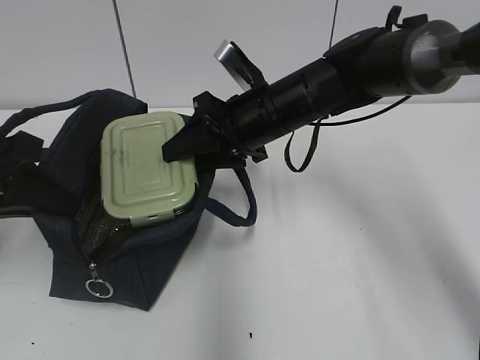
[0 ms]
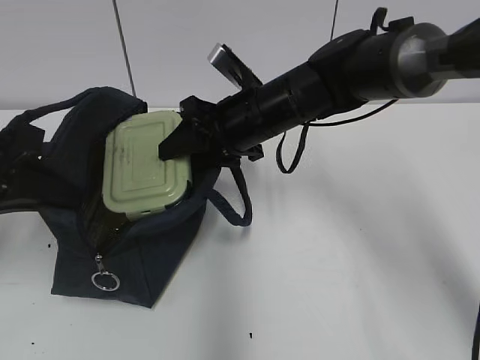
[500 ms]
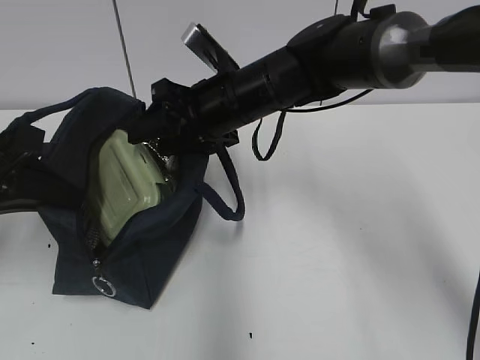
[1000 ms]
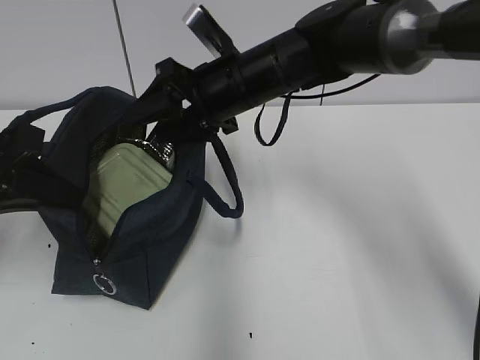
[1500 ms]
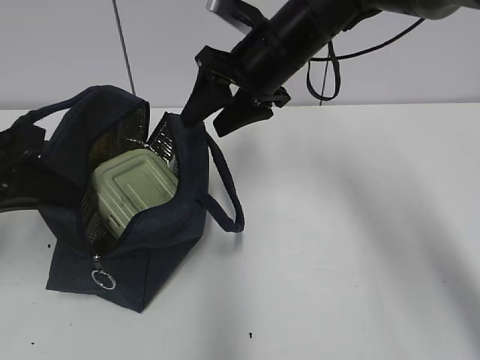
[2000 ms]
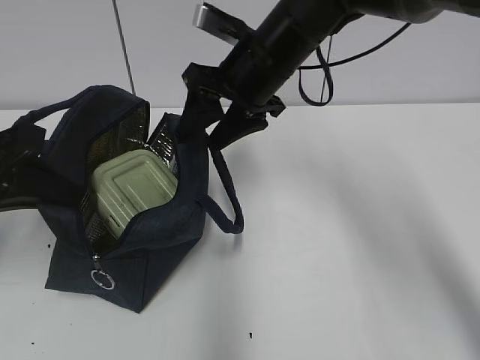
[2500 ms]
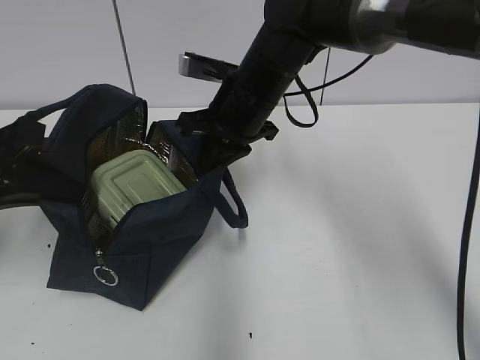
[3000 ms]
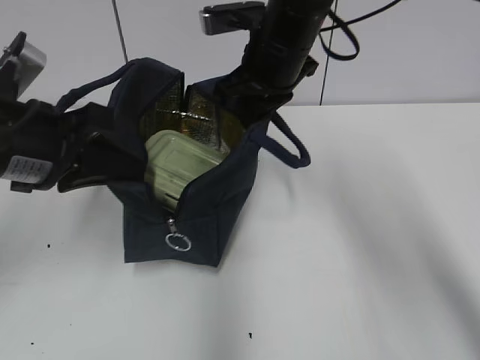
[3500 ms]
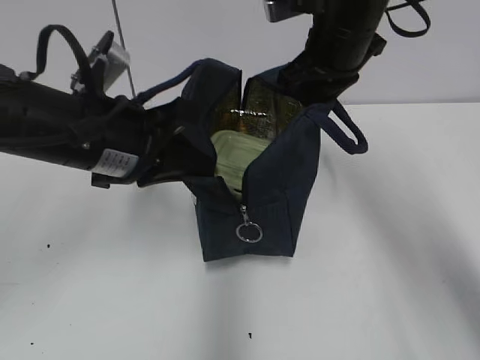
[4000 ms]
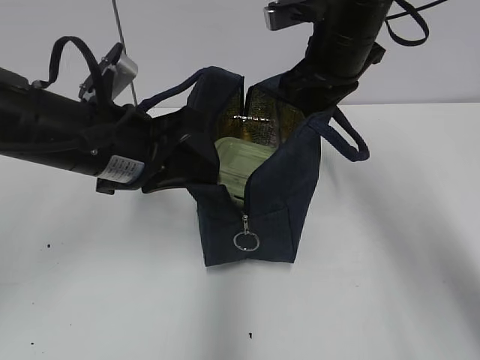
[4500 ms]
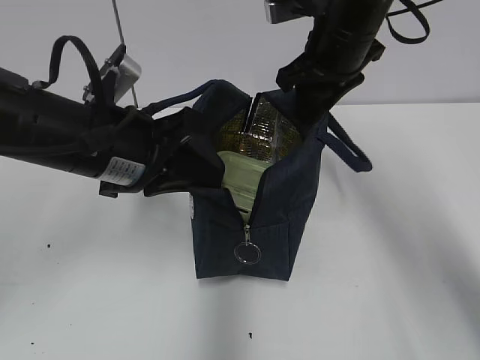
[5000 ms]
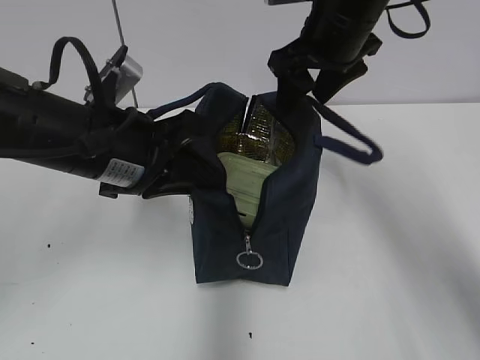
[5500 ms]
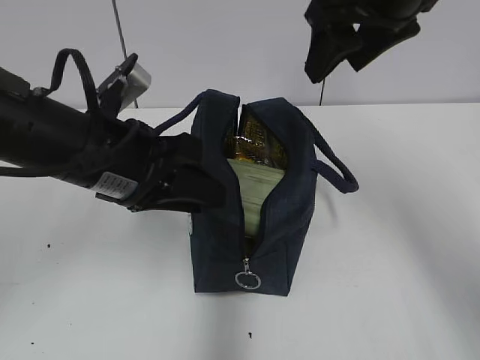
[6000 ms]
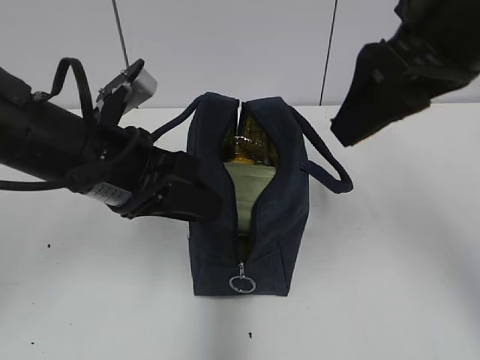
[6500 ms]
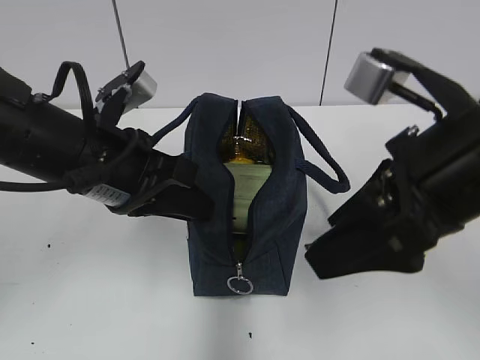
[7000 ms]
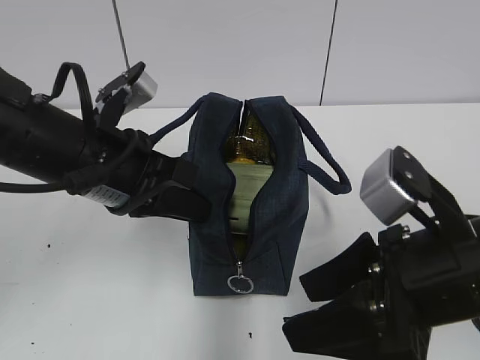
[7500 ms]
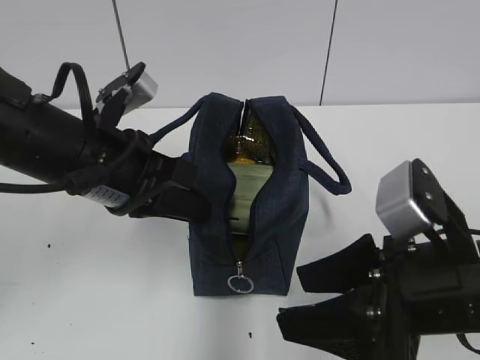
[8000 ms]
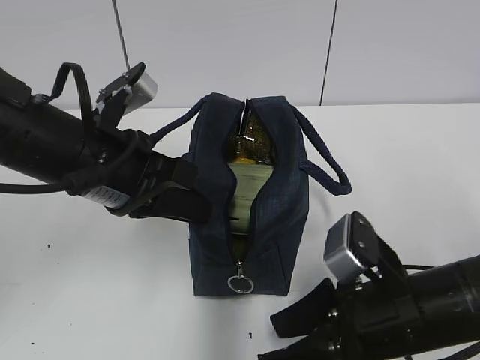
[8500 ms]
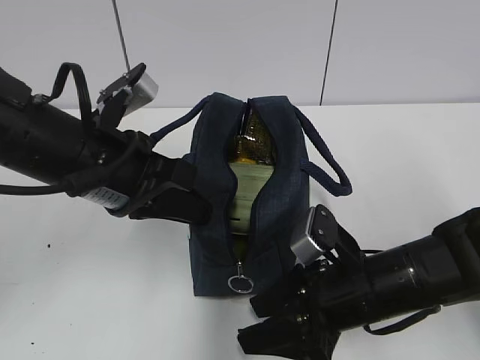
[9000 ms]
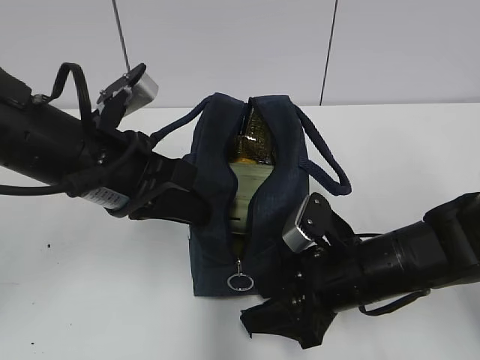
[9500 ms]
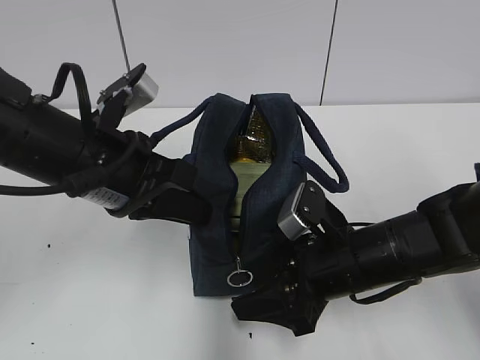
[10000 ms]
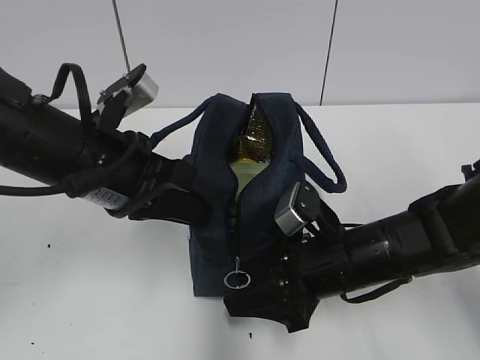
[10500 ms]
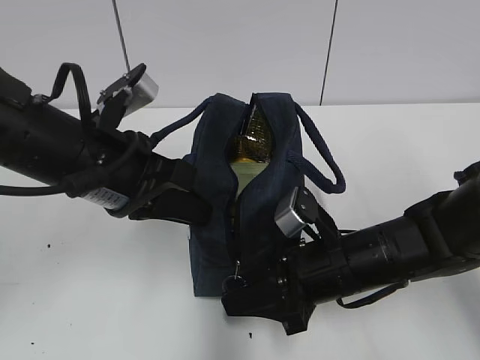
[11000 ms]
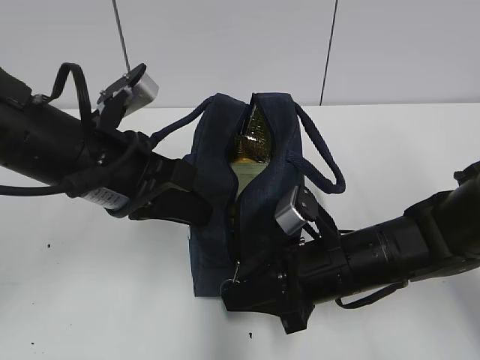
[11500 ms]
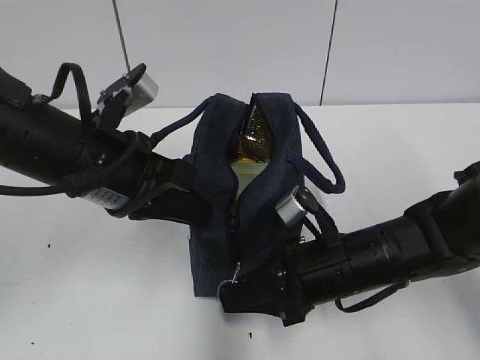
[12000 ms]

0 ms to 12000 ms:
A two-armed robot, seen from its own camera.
Step, 1500 ms to 2500 ms: Grab the lunch bag with your right hand.
Step, 3000 ms to 5500 ms: Move the lunch bag to the right.
0 ms to 2000 ms: The right gripper is displaced upward by some 5 cm.
2000 ms to 4000 ms: The left gripper travels to the right by some 10 cm. Meanwhile the right gripper heads to the right, covering approximately 5 cm, and closes up.
4000 ms to 6000 ms: The right gripper moves upward and backward, approximately 10 cm, and opens. The left gripper opens.
6000 ms to 8000 ms: The left gripper closes. Meanwhile the right gripper goes roughly 25 cm backward and downward.
8000 ms to 10000 ms: The right gripper is displaced downward and forward by approximately 15 cm.
10000 ms to 12000 ms: The right gripper closes.

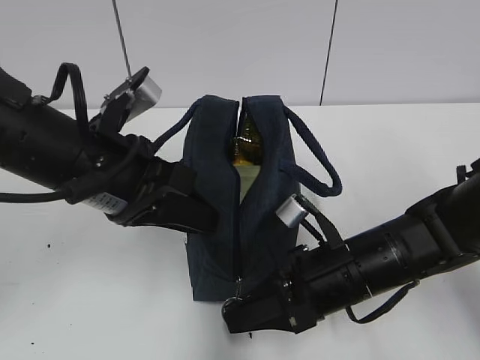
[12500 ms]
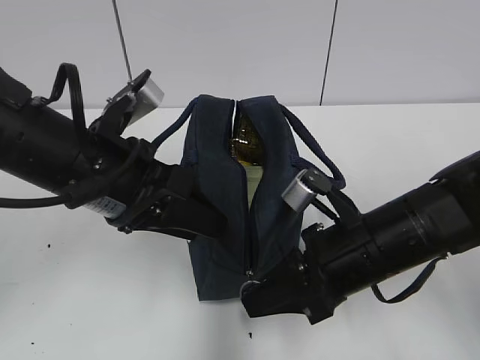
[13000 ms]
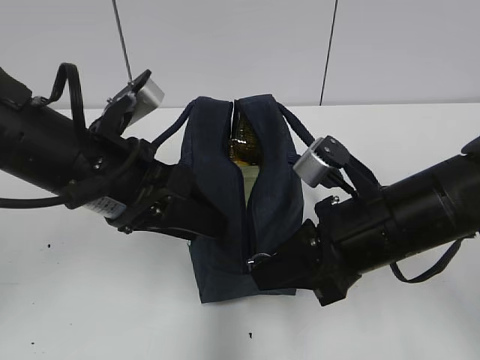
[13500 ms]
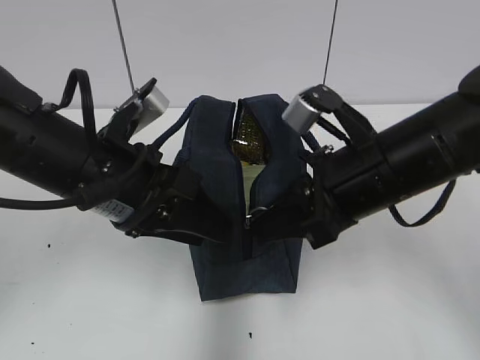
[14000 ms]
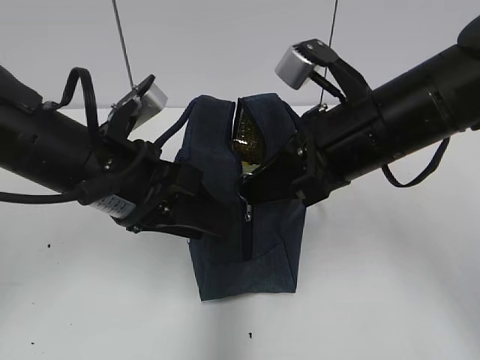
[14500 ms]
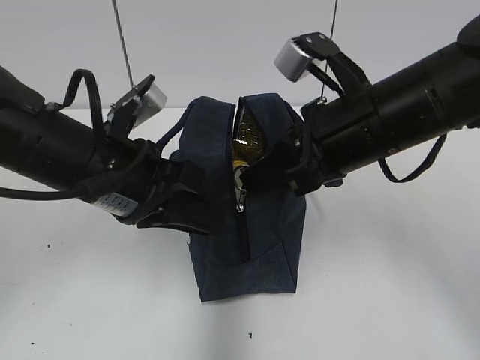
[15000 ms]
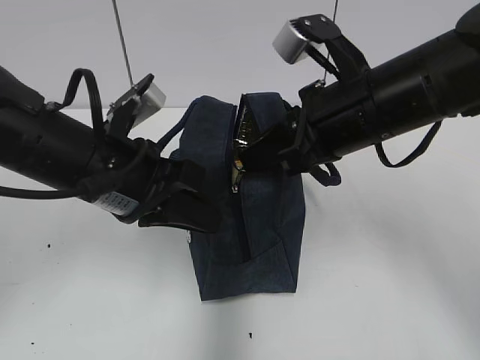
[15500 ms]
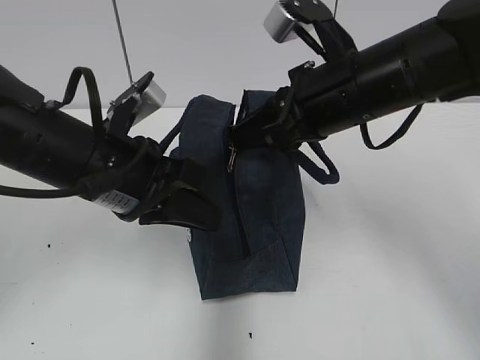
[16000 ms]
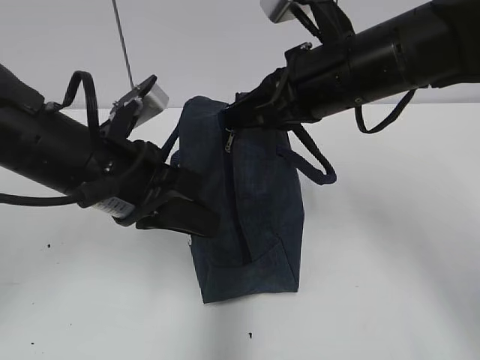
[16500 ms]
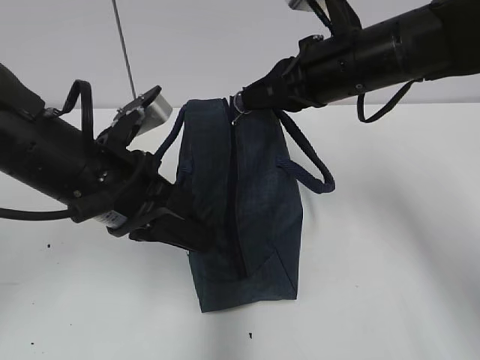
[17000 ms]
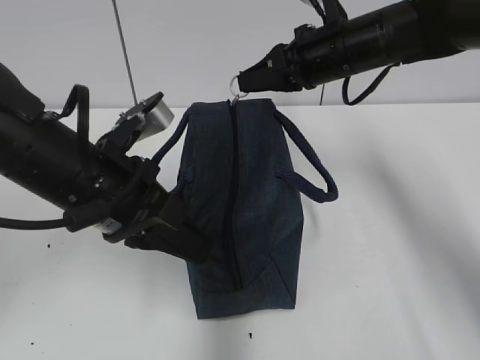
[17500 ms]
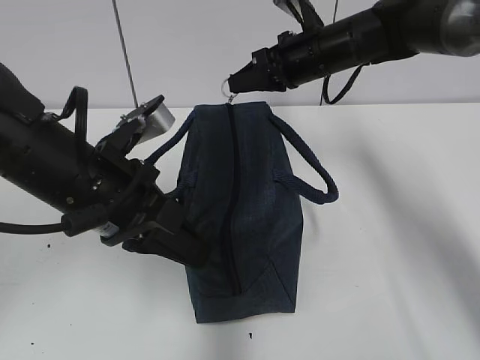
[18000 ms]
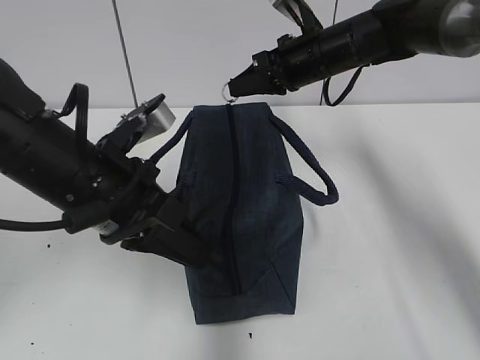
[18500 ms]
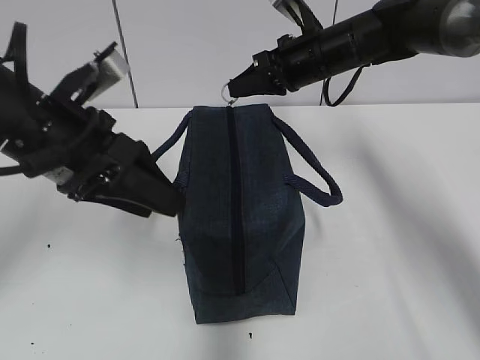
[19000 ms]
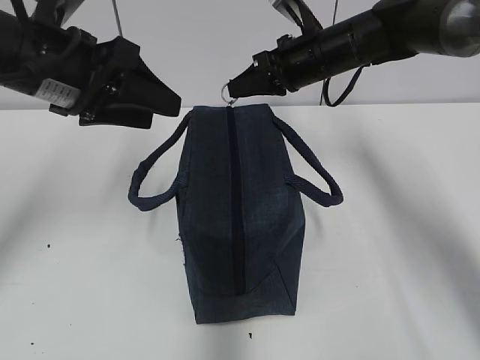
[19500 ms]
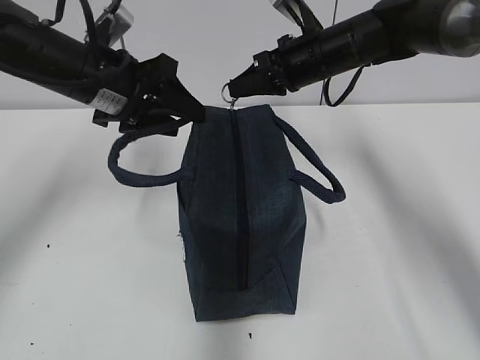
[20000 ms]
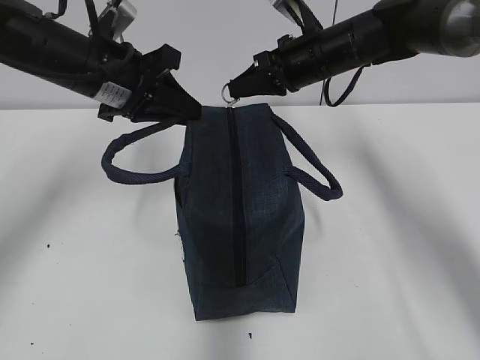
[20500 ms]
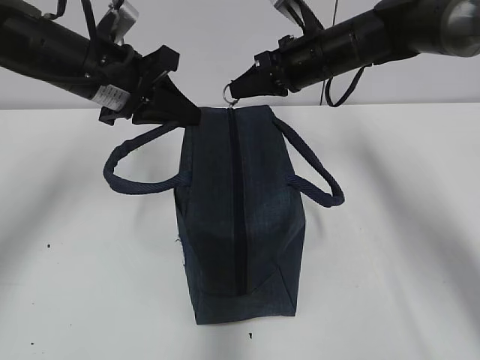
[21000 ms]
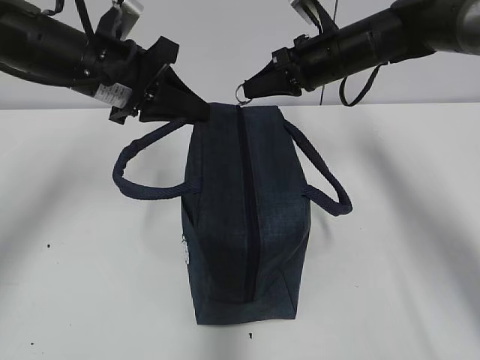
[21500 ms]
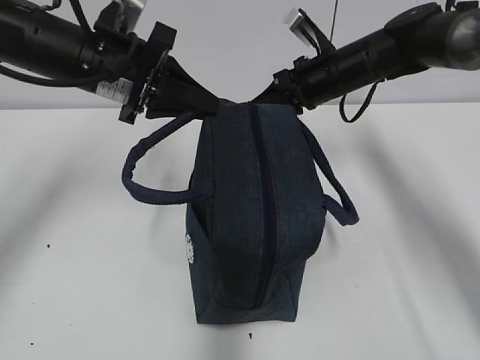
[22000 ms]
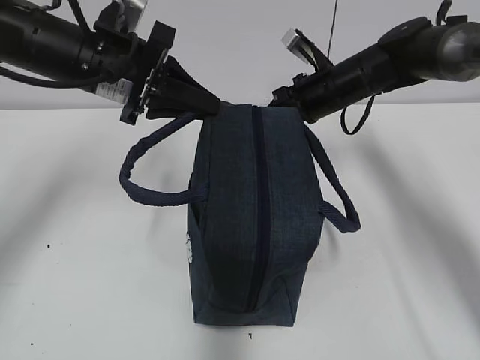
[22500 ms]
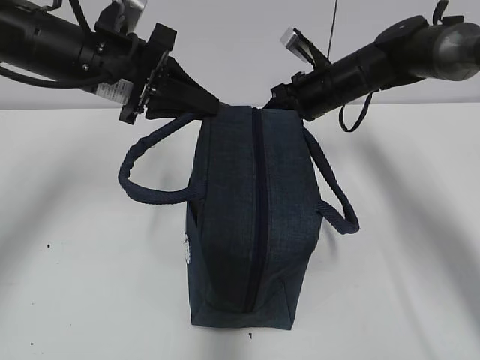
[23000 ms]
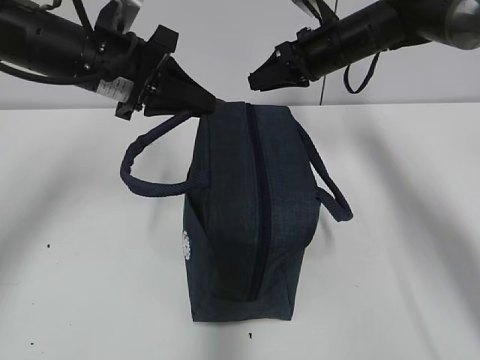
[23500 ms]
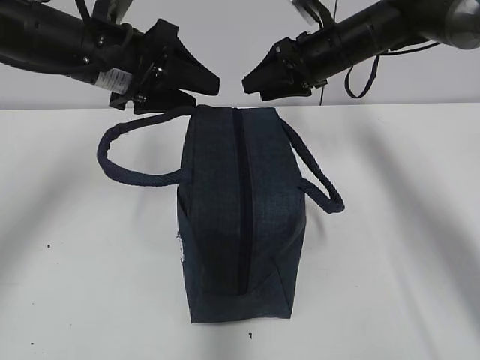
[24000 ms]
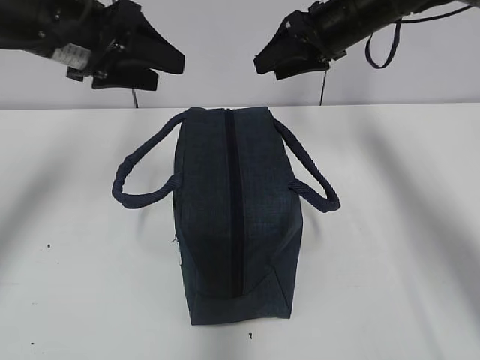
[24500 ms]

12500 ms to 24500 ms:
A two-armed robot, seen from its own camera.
Step, 15500 ms to 23000 ms: Pull the zipper with your right hand.
12500 ms to 14500 ms: The right gripper is displaced upward by roughly 15 cm.
14500 ms to 16500 ms: The left gripper closes; the right gripper shifts by some 5 cm.
16500 ms to 18500 ms: The right gripper travels forward by roughly 15 cm.
18500 ms to 20500 ms: The left gripper shifts some 15 cm forward, and opens, then closes again.
20500 ms to 22500 ms: The right gripper shifts approximately 5 cm downward.
22500 ms to 24500 ms: The right gripper travels upward by roughly 10 cm, and opens its fingers, while the left gripper shifts by about 5 cm, and opens its fingers.

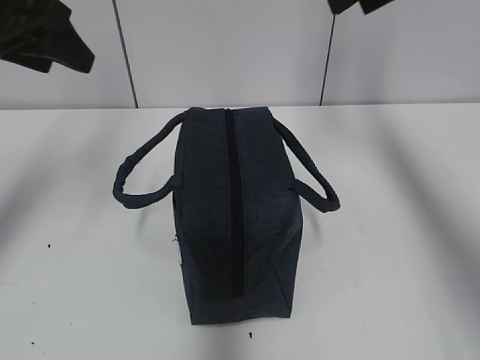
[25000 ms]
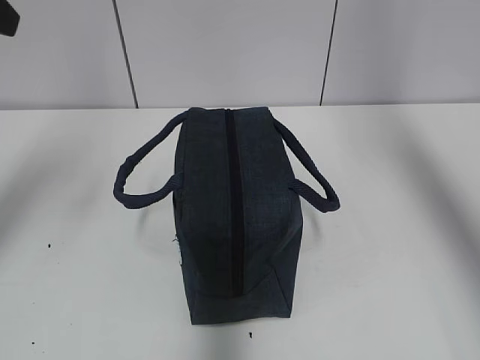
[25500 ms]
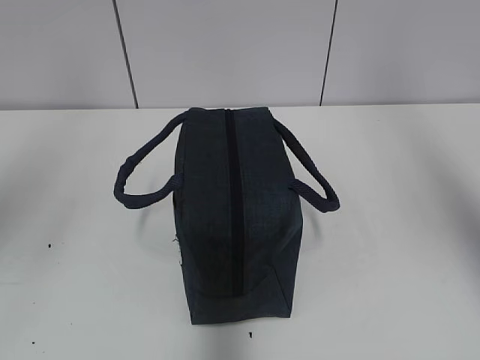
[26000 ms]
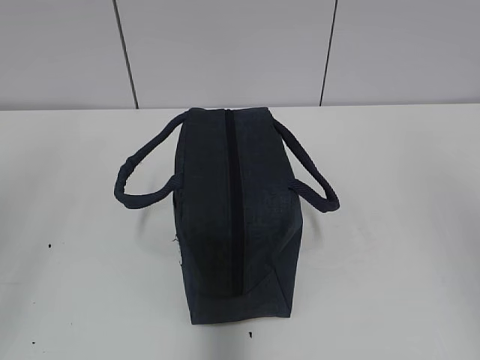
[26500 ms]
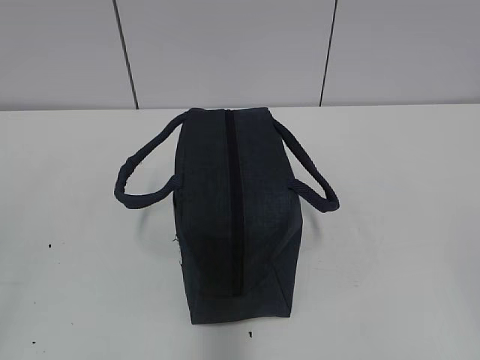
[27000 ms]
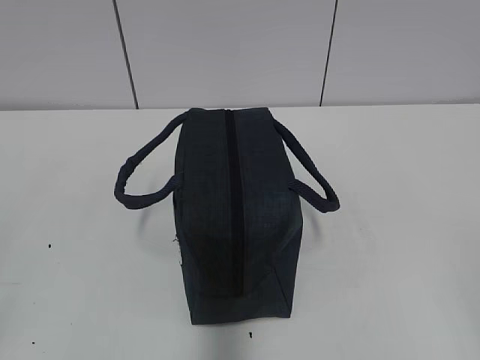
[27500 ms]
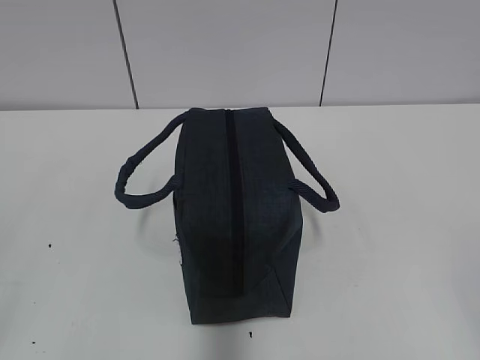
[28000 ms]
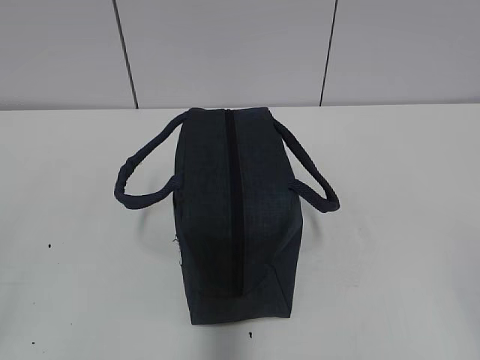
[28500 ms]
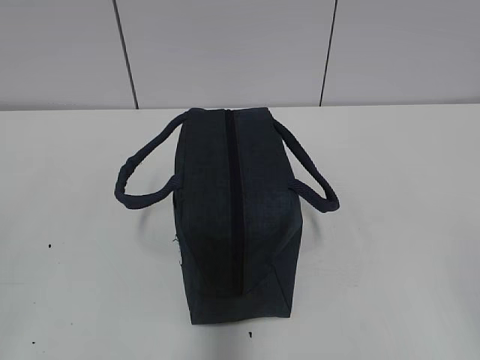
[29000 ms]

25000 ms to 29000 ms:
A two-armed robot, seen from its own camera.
25000 ms to 27000 ms: Both grippers travel together backward, roughly 40 cm.
